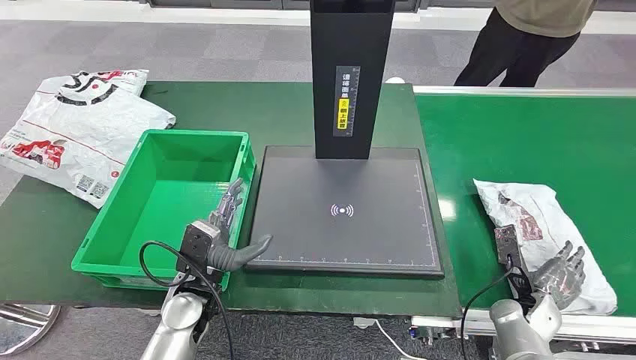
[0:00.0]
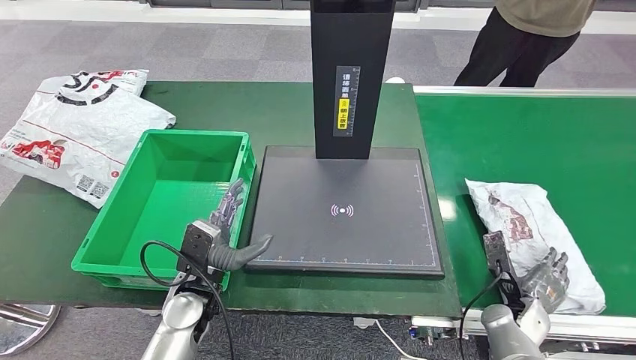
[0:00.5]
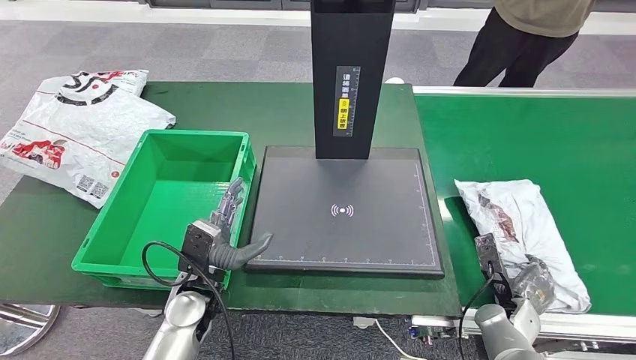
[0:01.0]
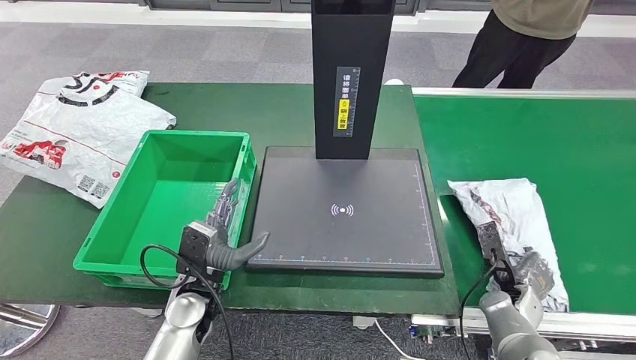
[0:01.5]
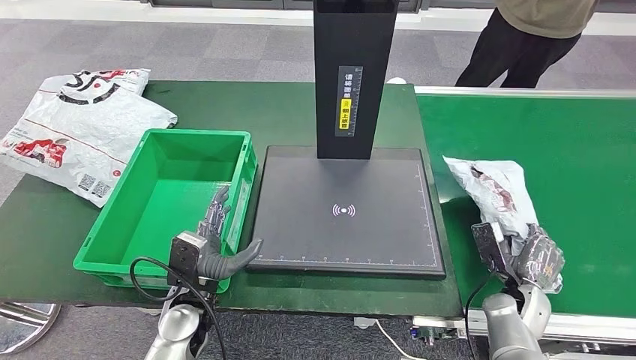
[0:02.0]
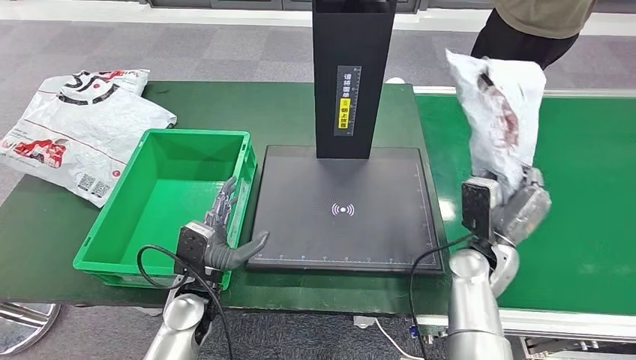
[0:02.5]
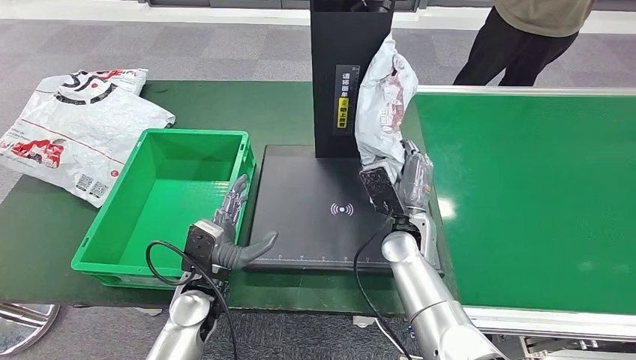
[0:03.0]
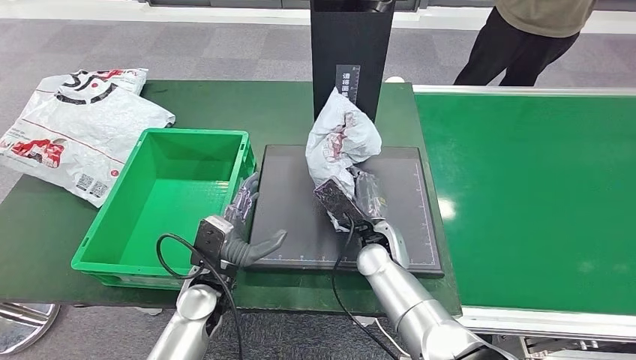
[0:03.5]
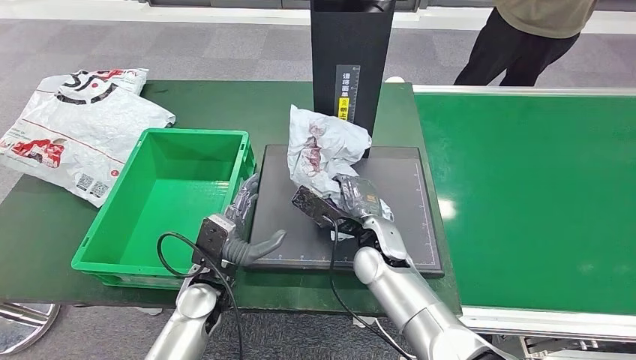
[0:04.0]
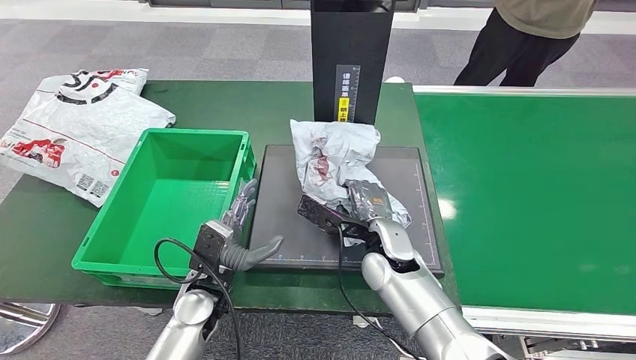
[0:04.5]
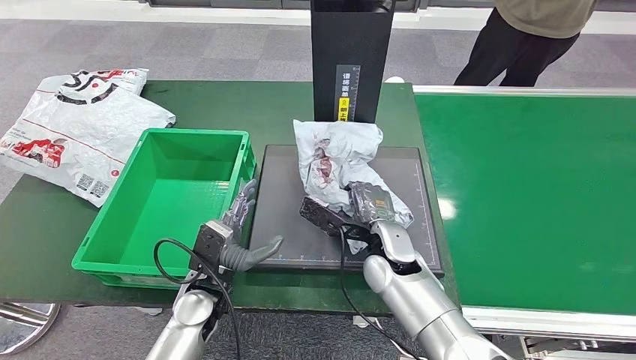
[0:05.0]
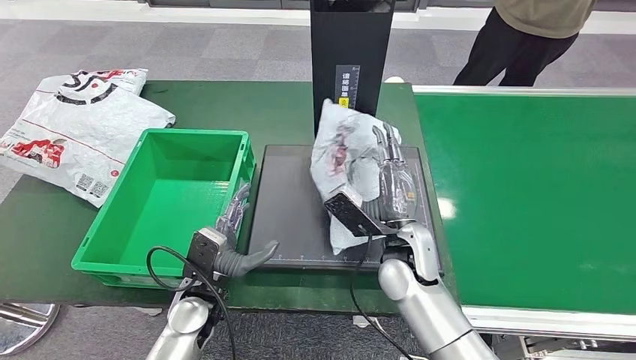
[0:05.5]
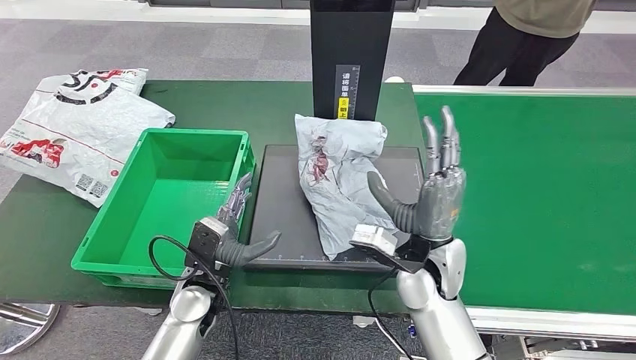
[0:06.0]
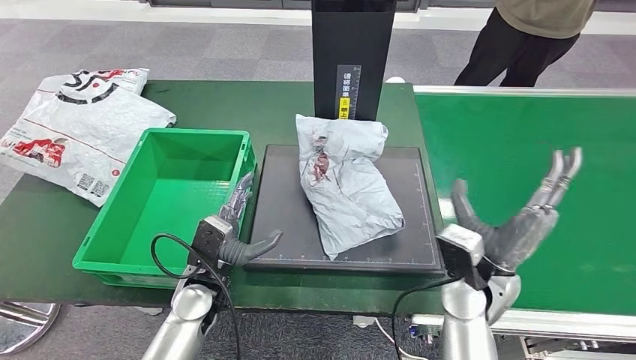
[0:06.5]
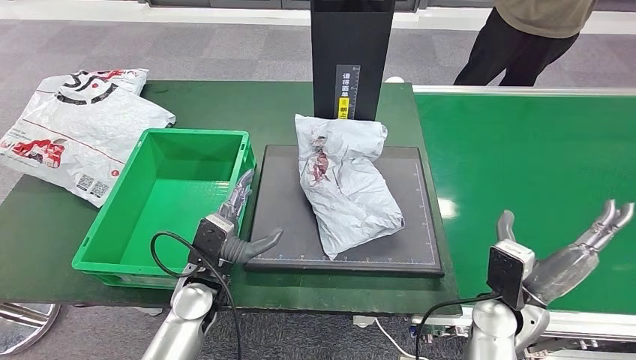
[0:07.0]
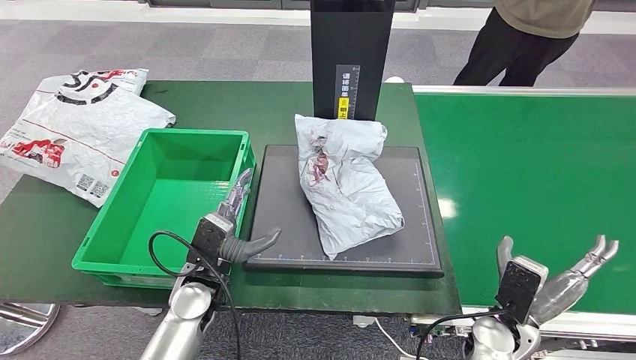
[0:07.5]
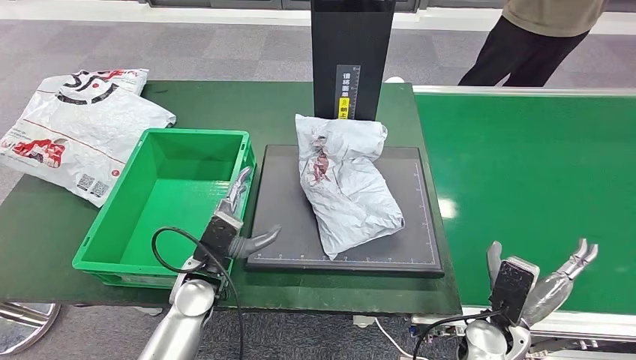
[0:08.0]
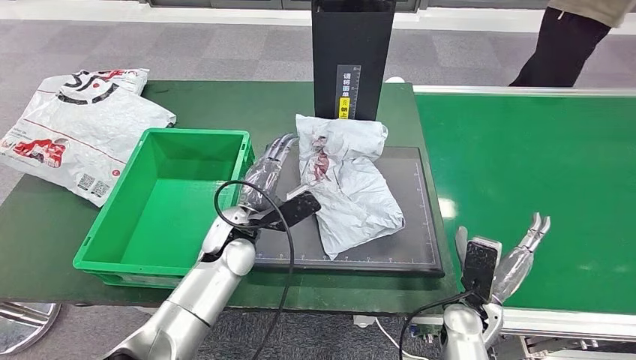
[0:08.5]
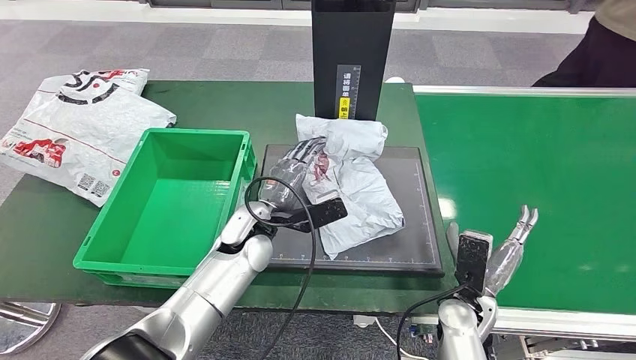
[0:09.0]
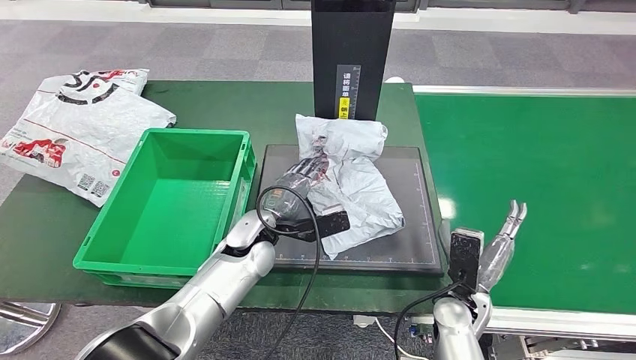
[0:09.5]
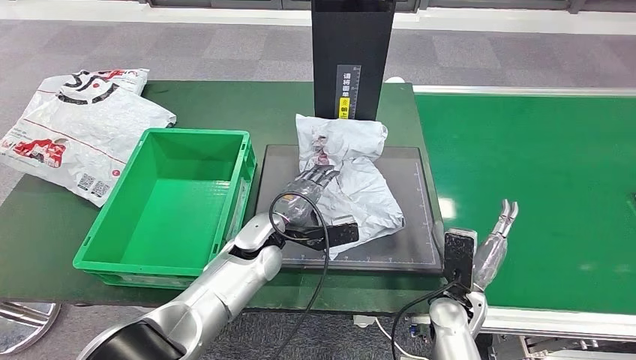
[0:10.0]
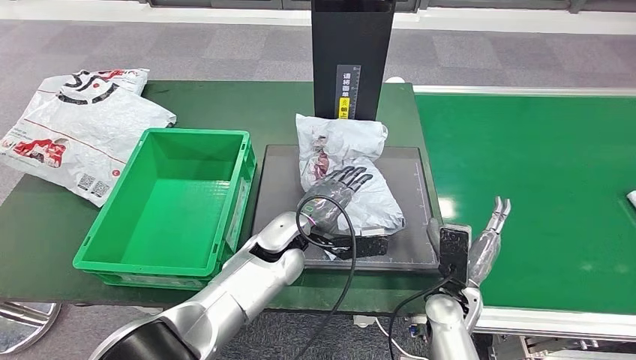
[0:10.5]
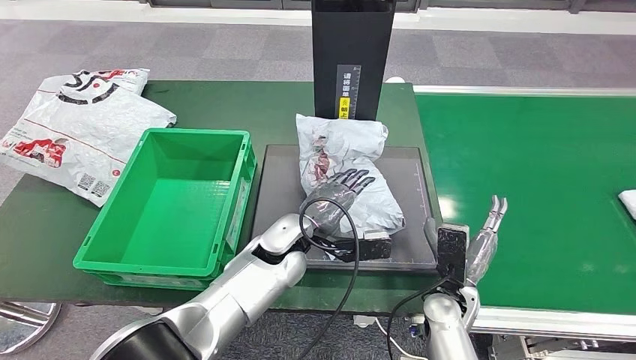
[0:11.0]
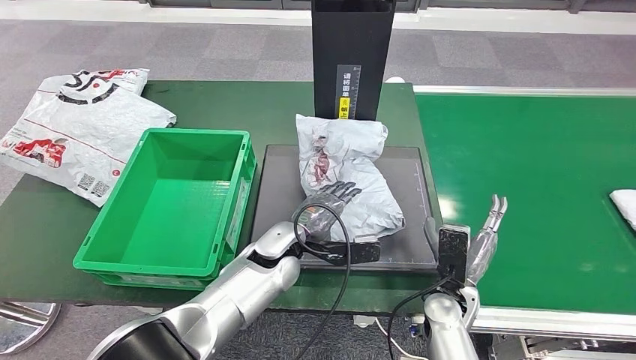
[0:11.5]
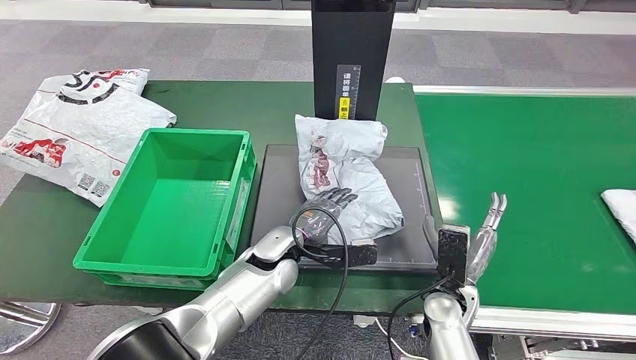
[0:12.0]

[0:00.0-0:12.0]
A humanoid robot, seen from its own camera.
Step, 0:00.0 to 0:02.0: Take the parcel off the conveyor belt.
Step, 0:02.5 to 0:06.5: Place the parcel onto the inbound machine.
0:04.0 to 0:06.0: The right hand goes approximately 10 cm to the right and upward.
0:06.0 to 0:08.0: The right hand is displaced downward, to the right and backward by roughly 20 cm.
0:08.0 to 0:10.0: The left hand moves to the right and forward, some 10 cm. The right hand goes about 5 cm to the left.
0:10.0 to 0:12.0: The hands stay close to where they were, moving slightly.

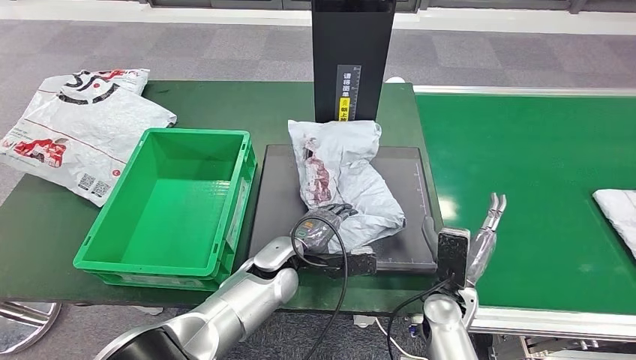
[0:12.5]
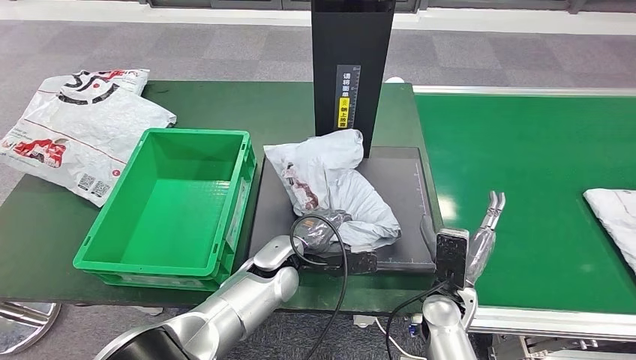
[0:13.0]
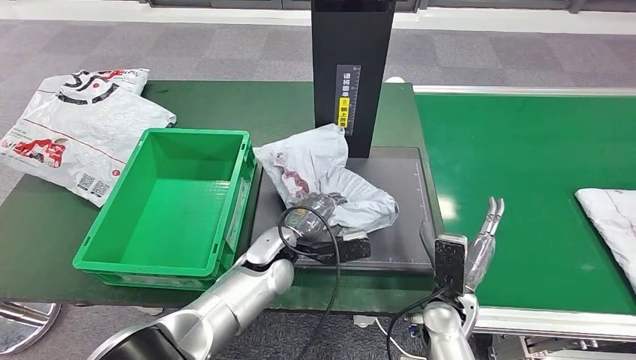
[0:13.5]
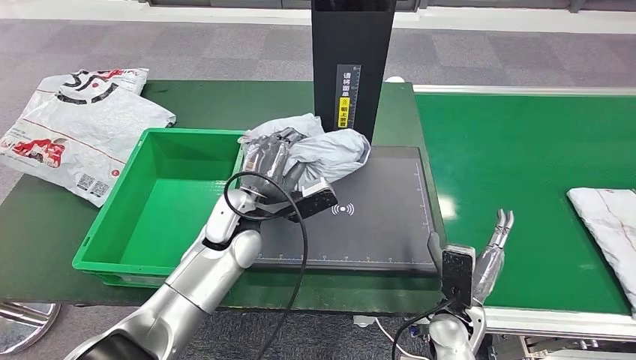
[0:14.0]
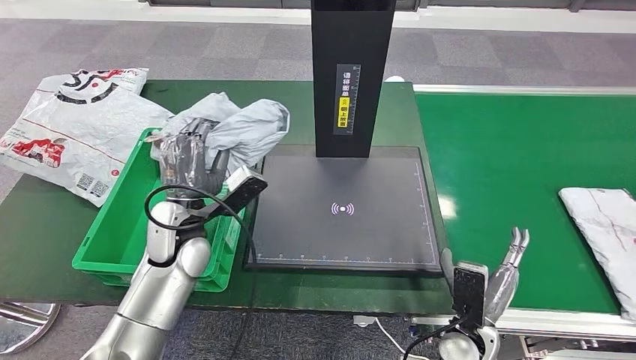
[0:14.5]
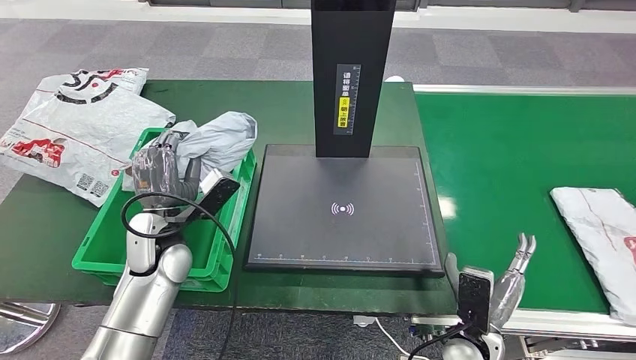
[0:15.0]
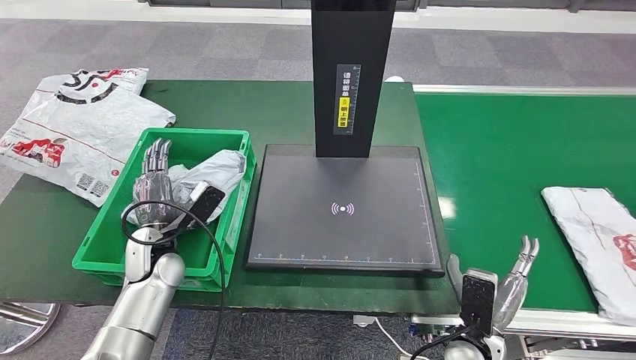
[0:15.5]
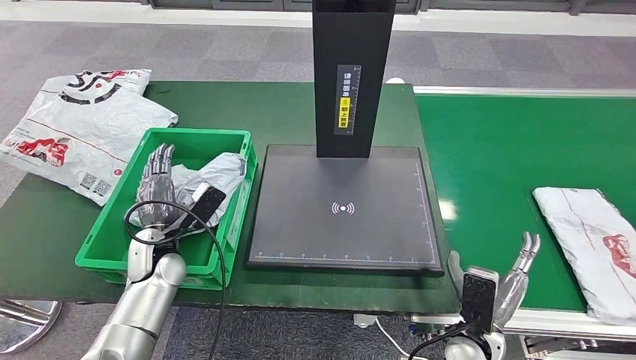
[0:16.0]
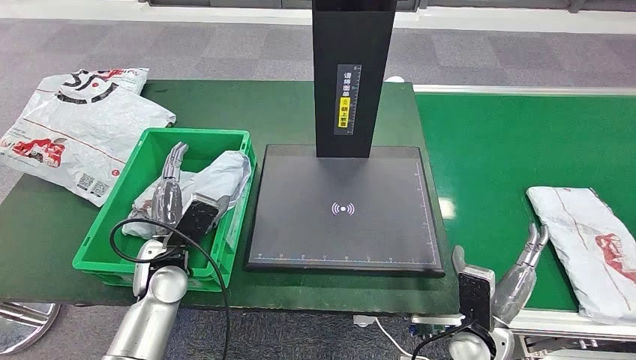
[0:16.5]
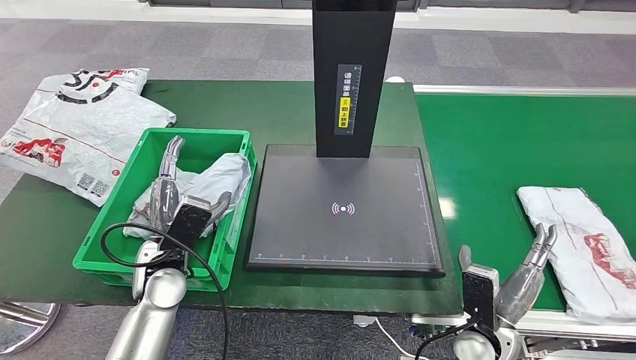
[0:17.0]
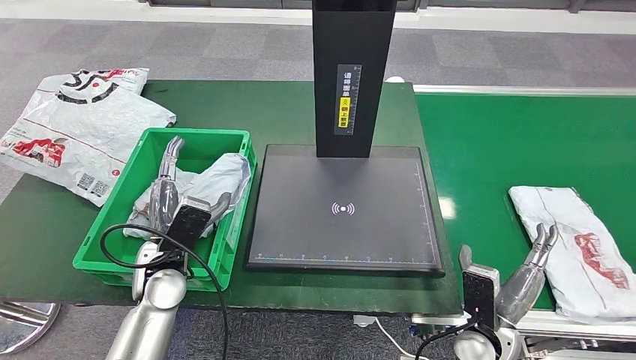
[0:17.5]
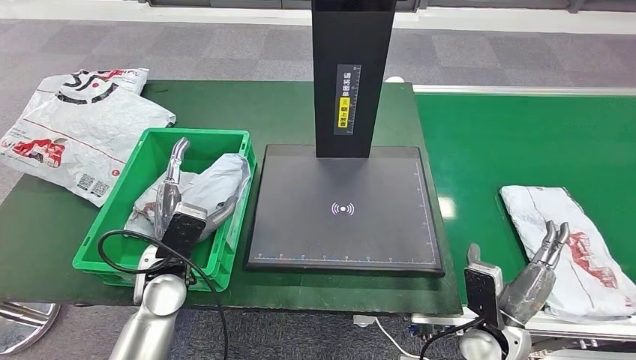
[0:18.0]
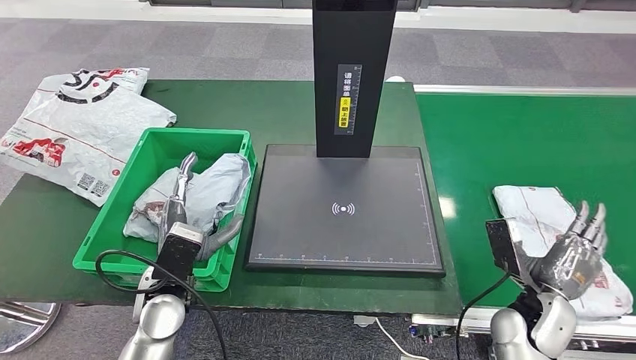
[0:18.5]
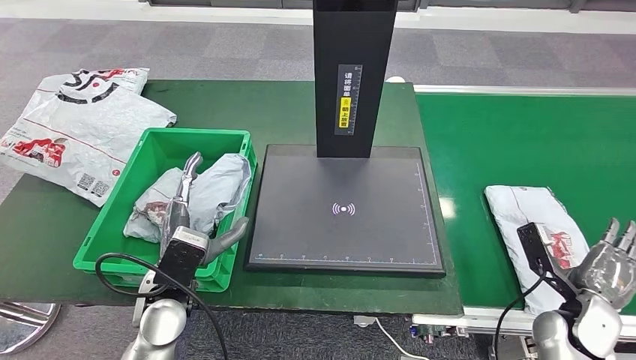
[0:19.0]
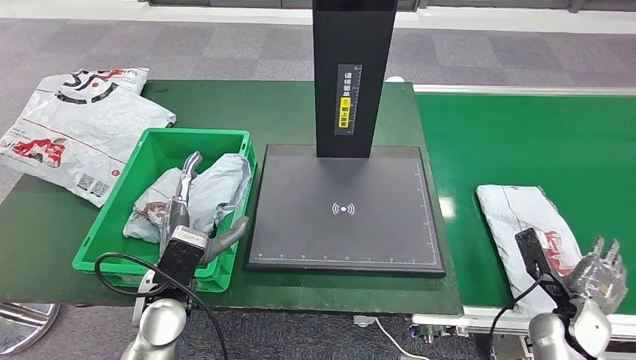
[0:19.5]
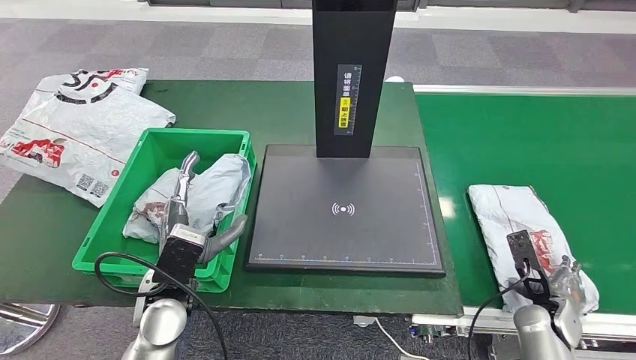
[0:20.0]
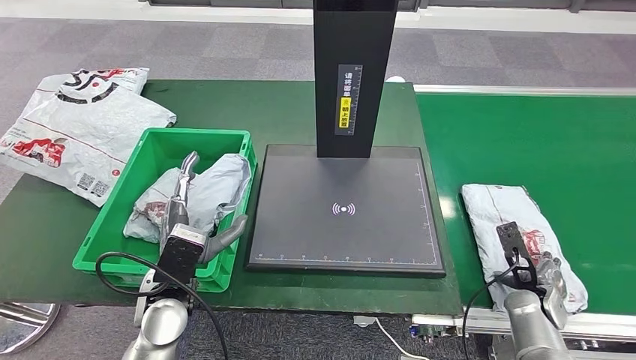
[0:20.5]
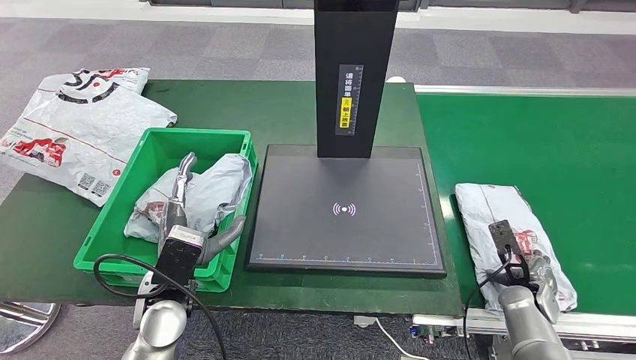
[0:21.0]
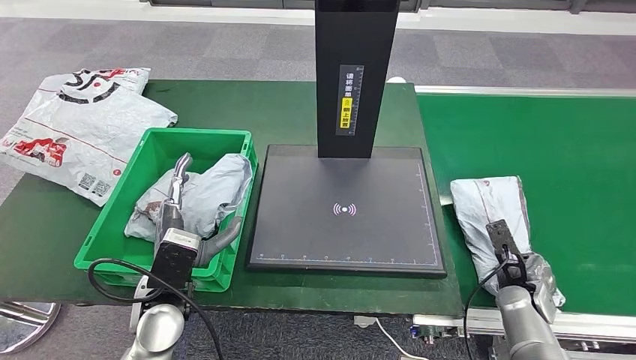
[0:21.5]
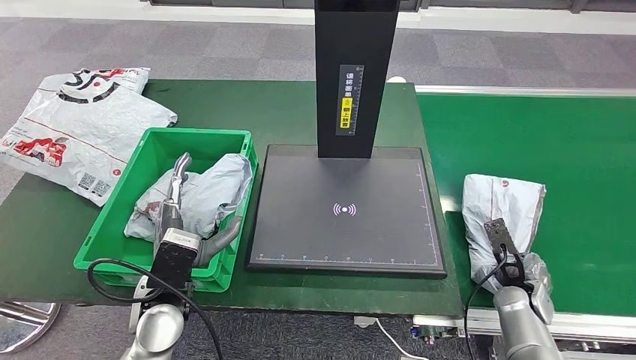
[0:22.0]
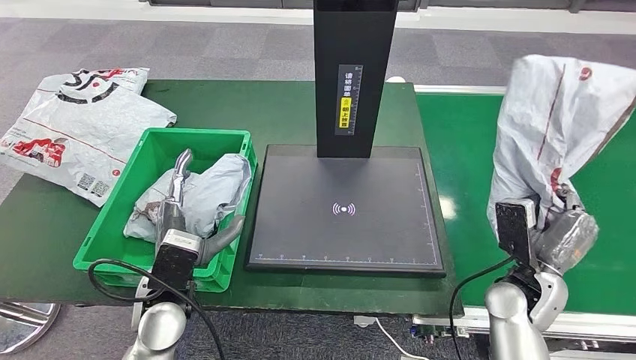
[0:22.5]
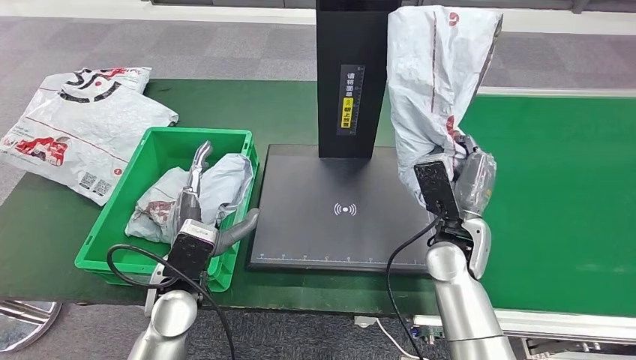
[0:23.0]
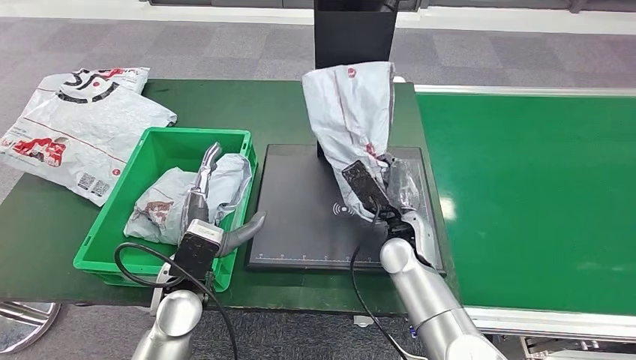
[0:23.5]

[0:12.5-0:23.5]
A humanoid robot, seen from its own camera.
Step, 0:14.5 to 0:19.0: Put the parcel inside the courier box.
Step, 0:20.0 to 0:23.0: Pick up the parcel from the conveyor belt.
0:16.0 to 0:18.0: The left hand travels to the right by roughly 5 cm.
0:18.0 to 0:20.0: The right hand moves to the right, about 15 cm.
0:20.0 to 0:21.5: The hands move only a little.
